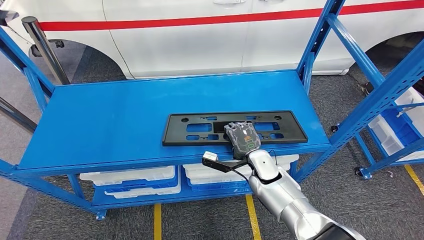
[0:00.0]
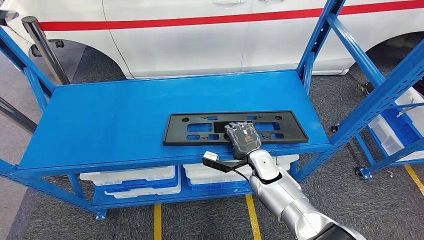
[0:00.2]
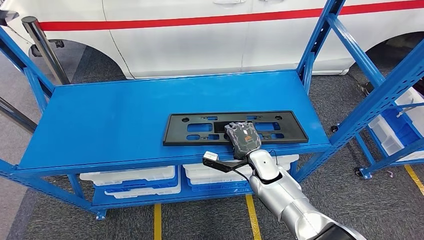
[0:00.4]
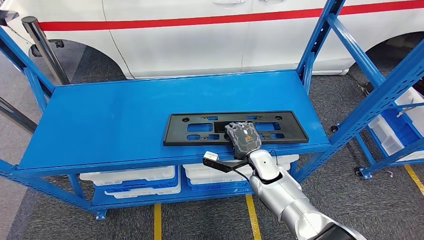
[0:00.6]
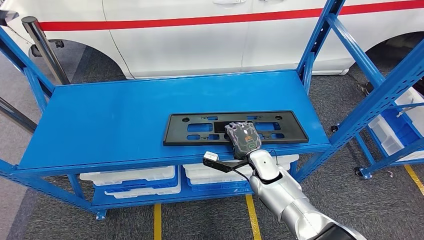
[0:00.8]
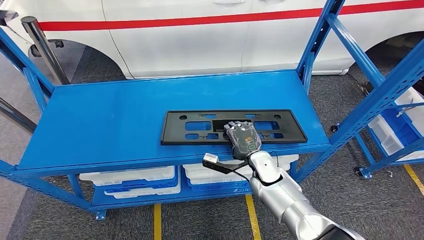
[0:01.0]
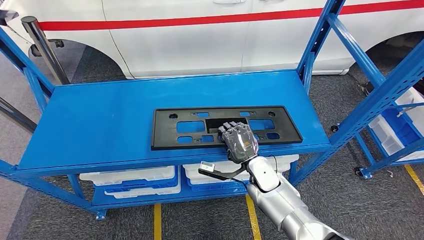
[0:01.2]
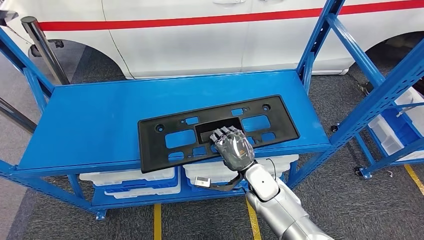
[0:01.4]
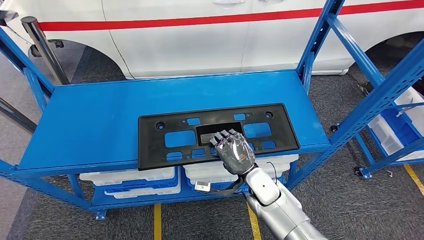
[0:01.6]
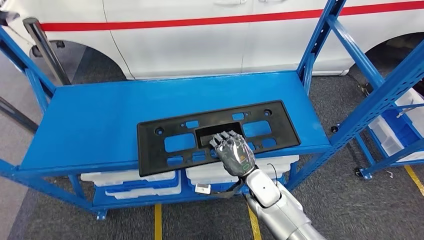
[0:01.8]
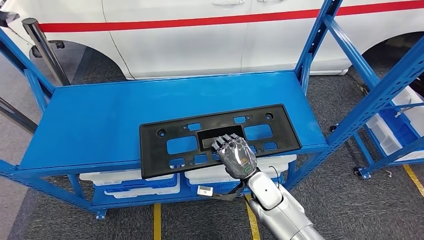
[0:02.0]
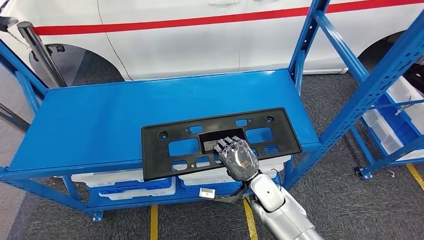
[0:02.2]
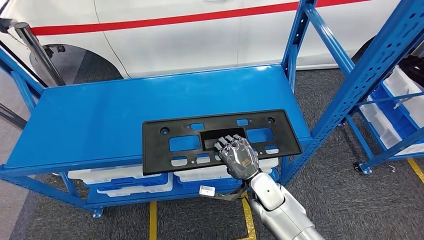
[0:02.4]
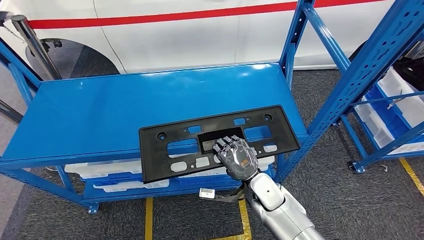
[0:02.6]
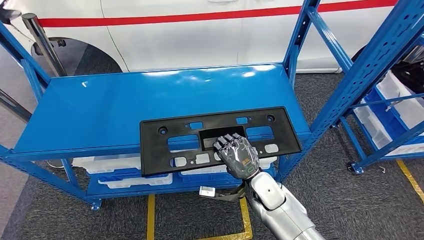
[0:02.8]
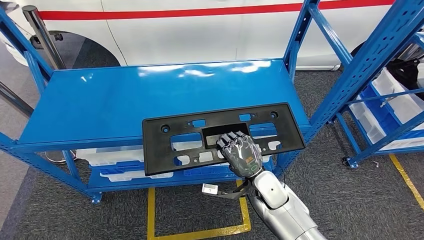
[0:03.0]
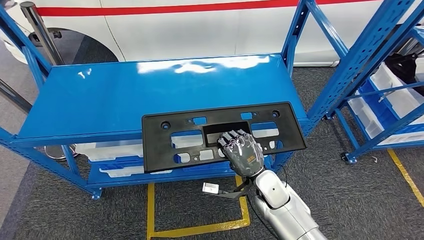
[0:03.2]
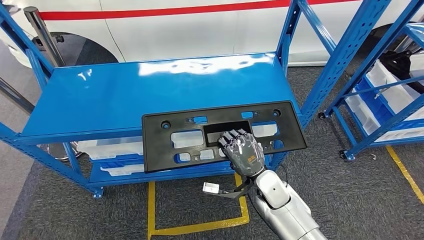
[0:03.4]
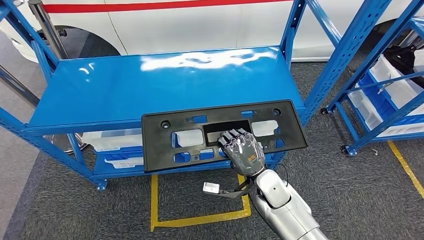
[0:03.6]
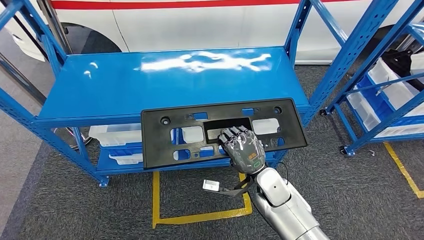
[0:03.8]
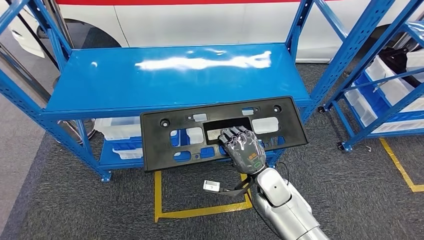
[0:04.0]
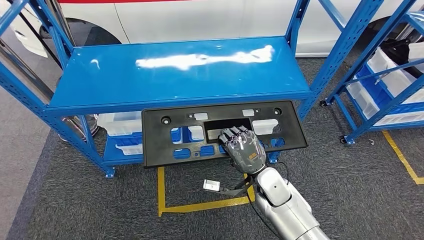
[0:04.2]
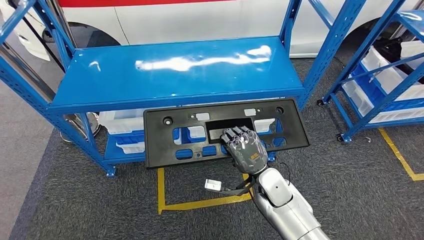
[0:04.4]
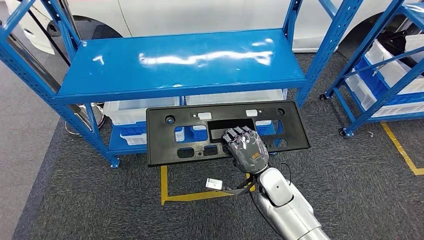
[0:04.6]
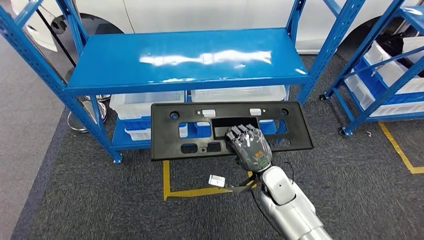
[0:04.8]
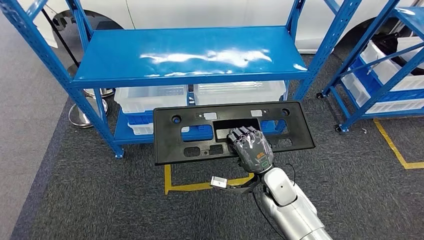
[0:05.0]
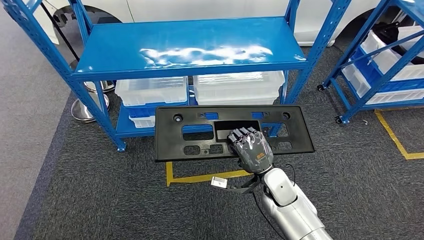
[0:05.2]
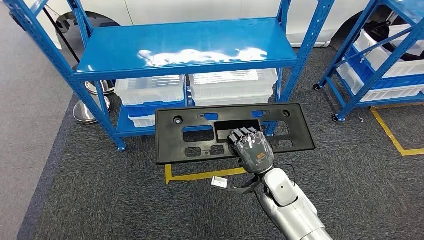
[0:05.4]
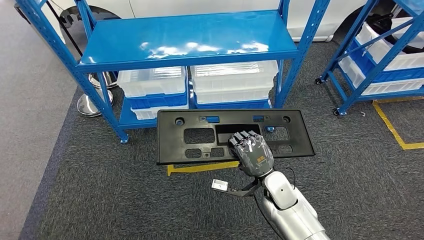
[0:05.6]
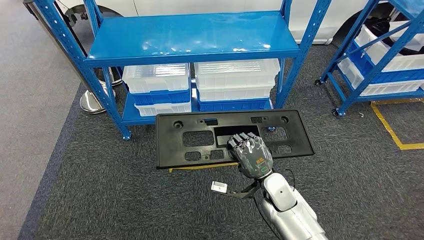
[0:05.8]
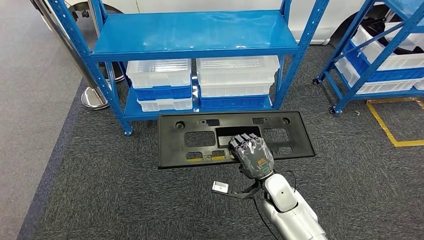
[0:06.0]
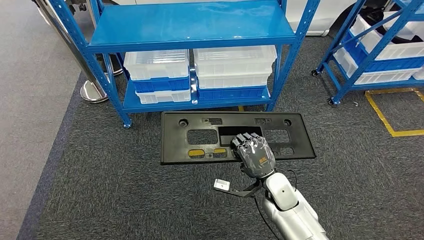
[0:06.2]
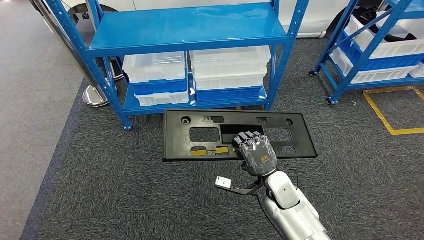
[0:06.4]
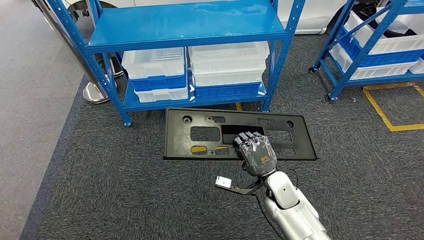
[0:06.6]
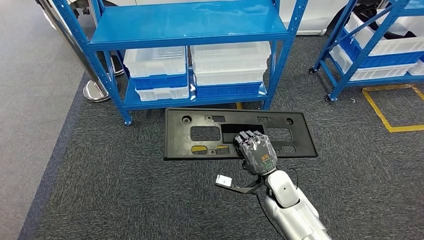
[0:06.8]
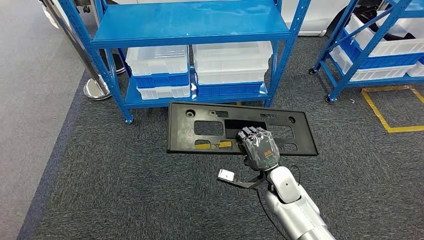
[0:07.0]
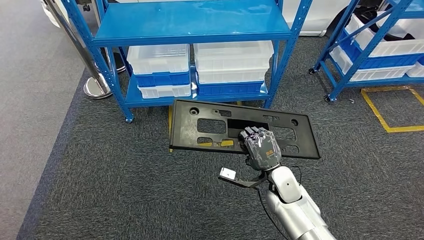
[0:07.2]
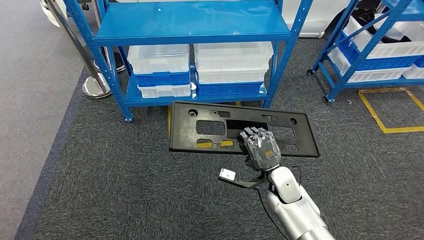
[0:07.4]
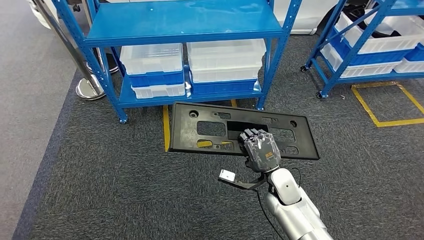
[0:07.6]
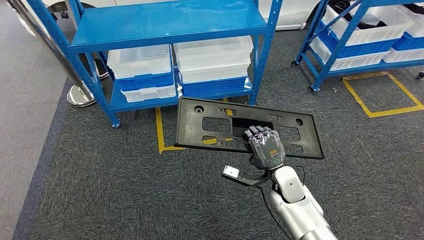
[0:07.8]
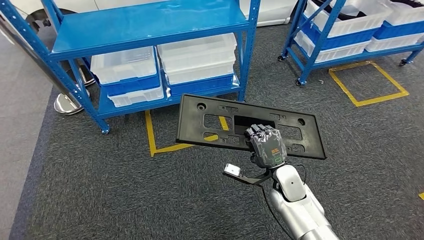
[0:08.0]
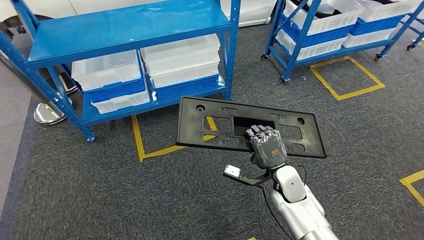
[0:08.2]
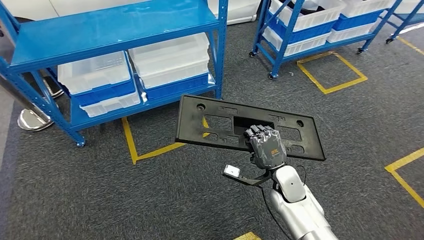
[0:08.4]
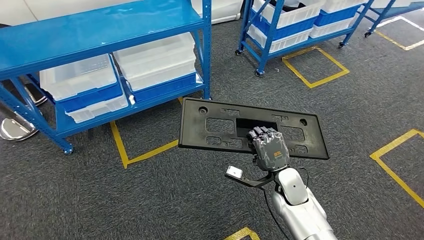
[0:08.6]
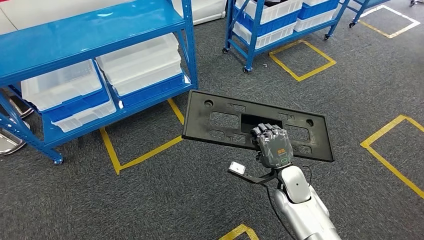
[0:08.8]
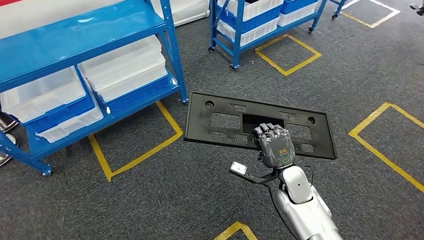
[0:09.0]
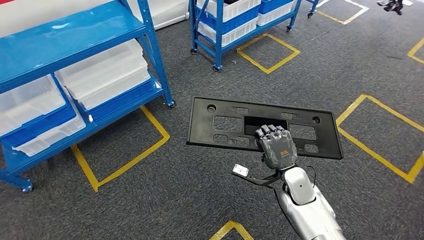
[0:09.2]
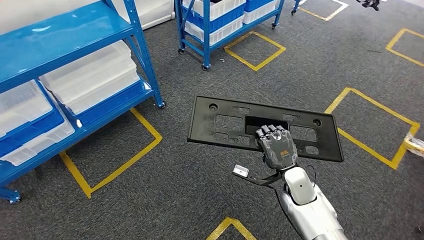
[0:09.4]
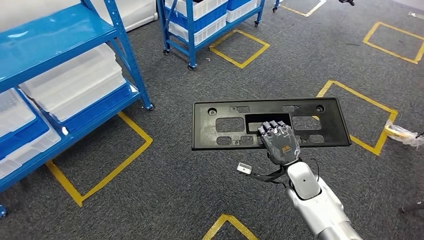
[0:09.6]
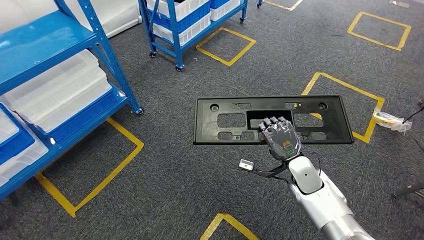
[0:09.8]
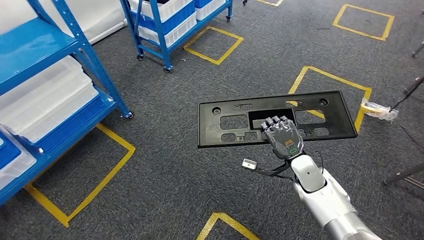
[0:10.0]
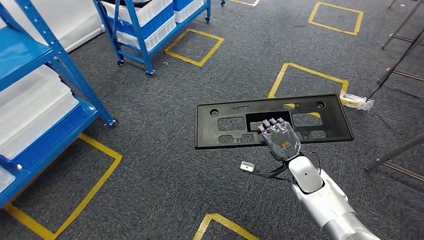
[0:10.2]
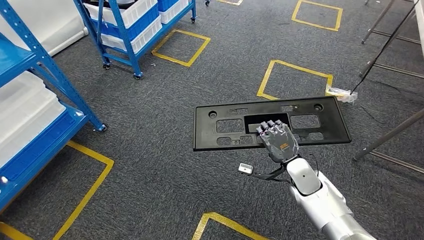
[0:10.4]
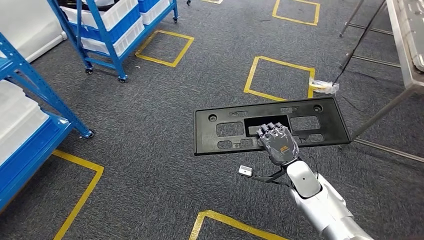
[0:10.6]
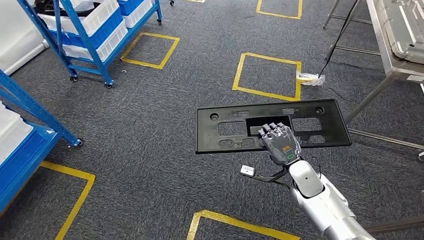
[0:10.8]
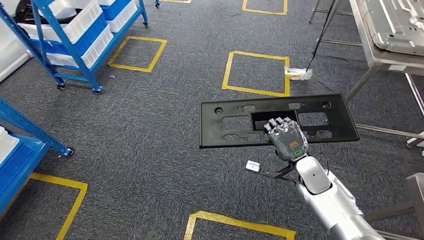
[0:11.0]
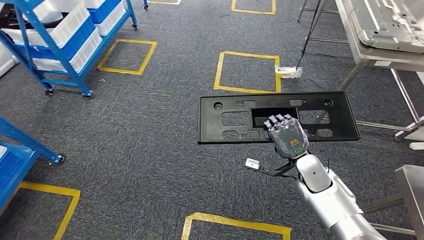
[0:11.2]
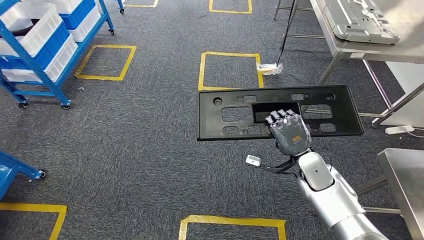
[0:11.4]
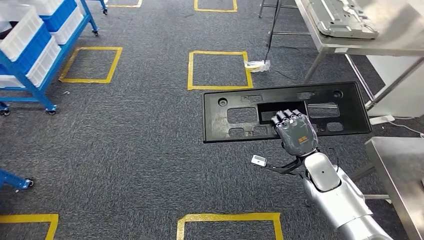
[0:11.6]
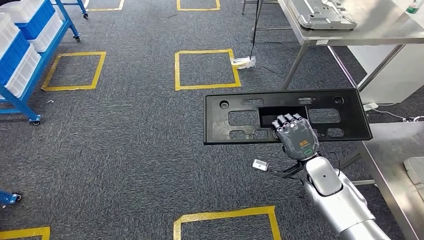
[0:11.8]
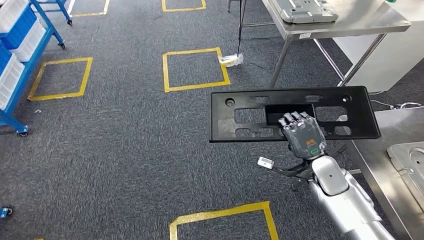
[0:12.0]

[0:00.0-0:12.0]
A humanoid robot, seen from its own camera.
Step, 0:00.0 to 0:02.0: Pick up the large material from the shelf.

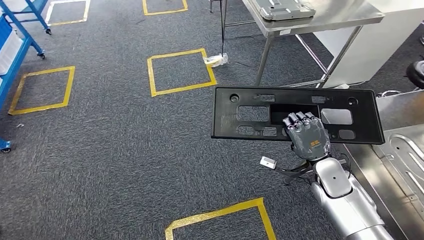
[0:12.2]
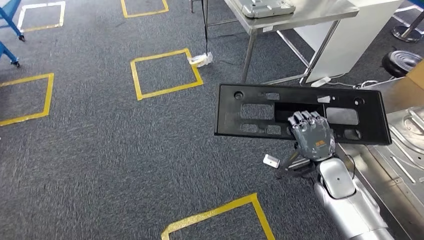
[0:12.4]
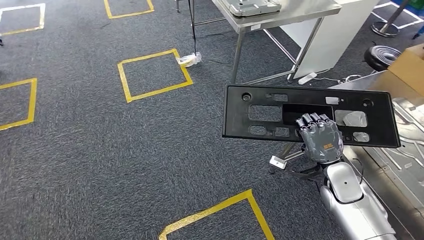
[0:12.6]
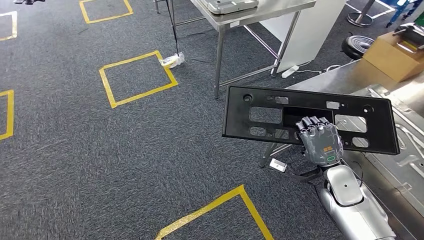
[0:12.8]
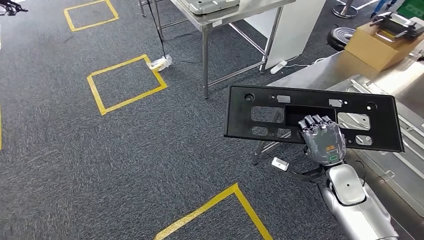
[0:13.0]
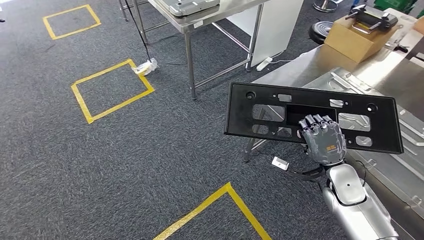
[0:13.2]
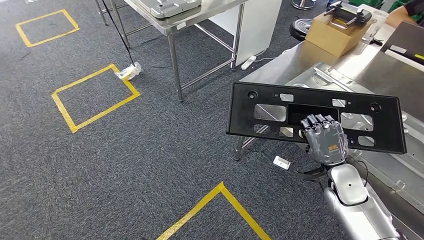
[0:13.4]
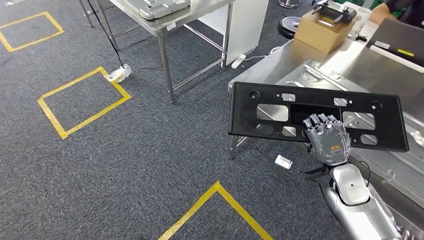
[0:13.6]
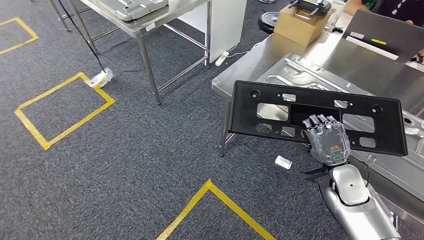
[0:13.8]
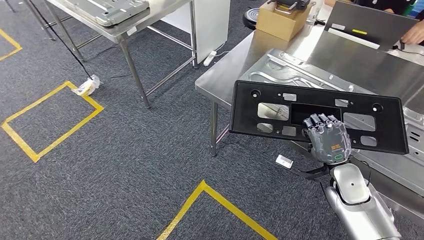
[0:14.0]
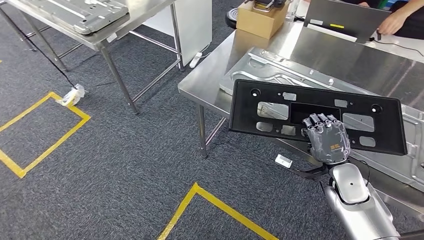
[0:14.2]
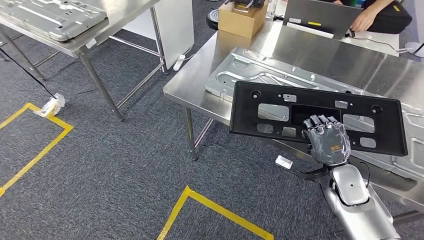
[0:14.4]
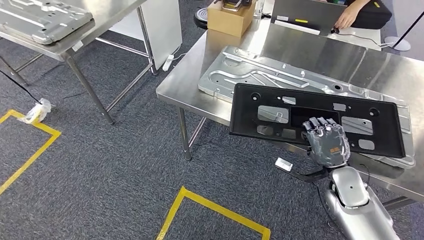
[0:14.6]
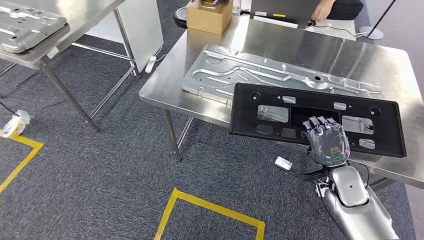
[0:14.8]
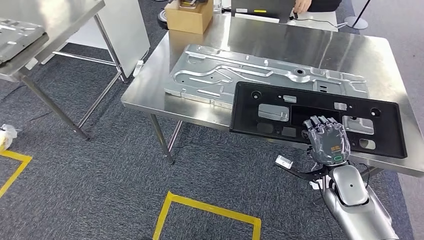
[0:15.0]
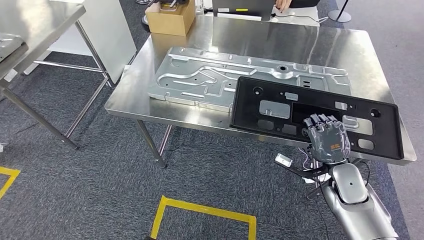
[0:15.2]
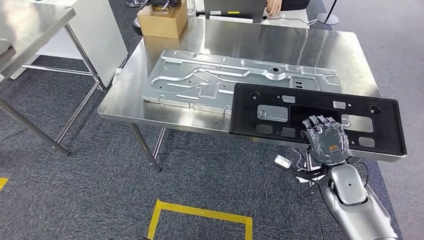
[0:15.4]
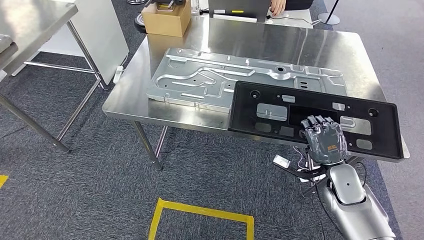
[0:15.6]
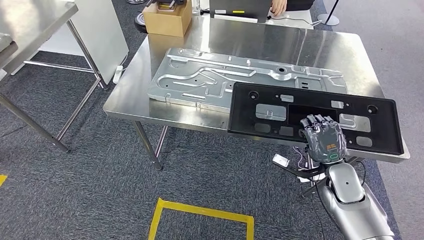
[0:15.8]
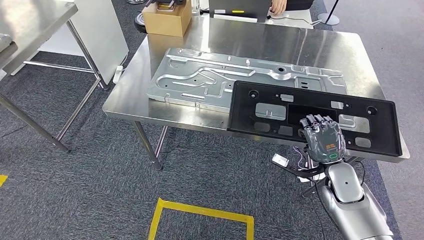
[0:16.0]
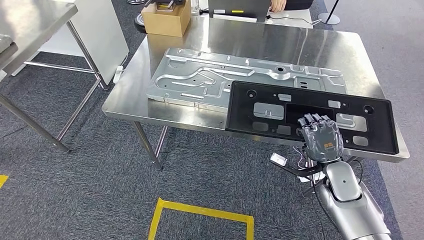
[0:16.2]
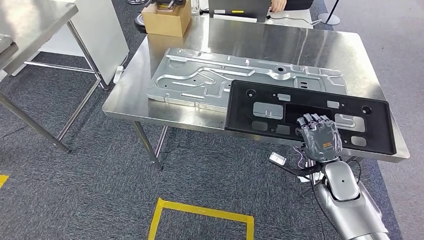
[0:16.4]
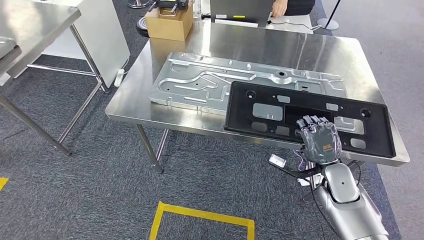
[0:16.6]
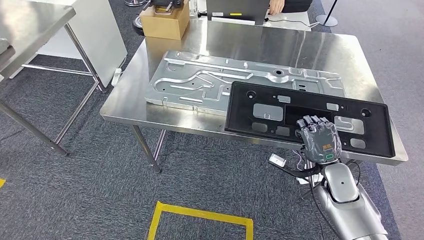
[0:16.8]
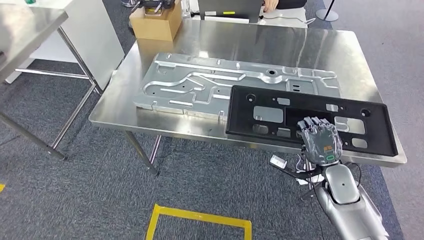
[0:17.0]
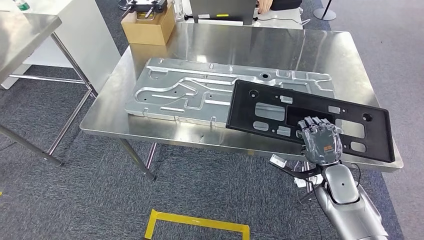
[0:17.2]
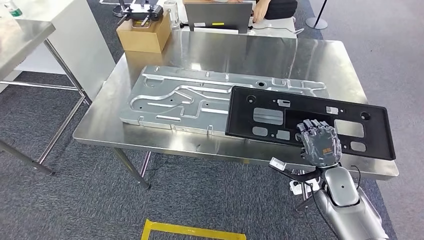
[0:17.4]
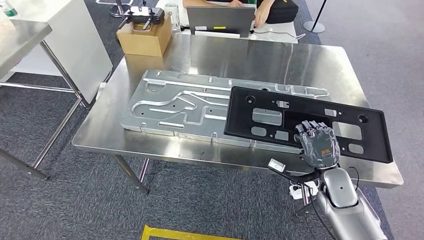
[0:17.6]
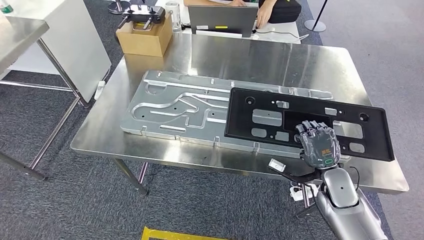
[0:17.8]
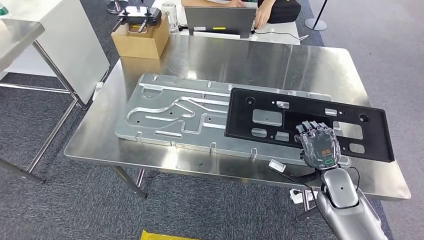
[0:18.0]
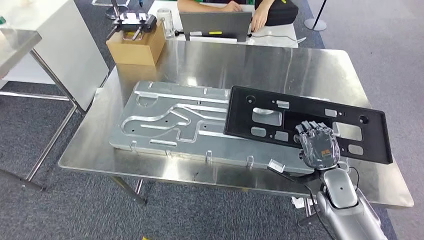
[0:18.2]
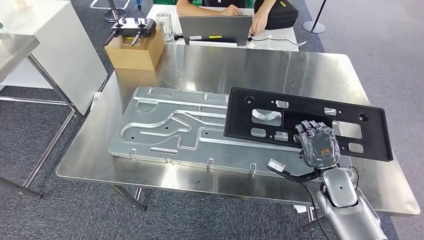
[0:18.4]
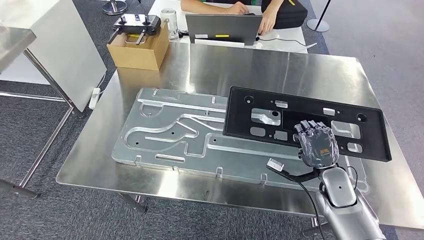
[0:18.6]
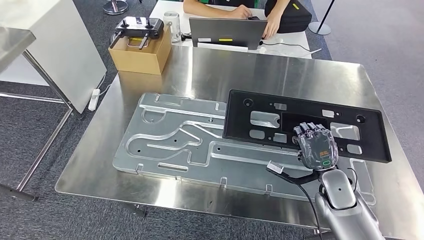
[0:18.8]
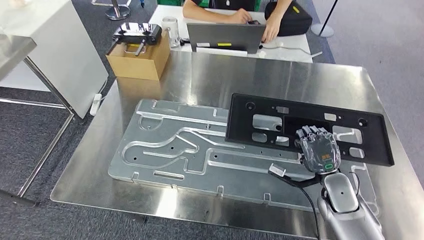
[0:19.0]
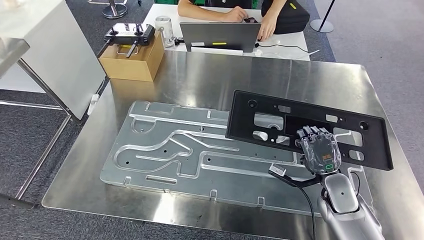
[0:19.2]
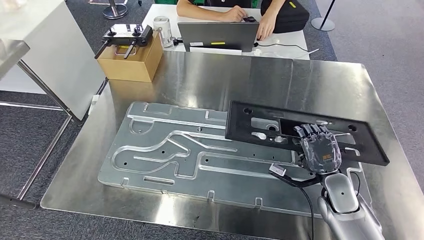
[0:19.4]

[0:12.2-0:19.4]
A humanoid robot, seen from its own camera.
Step, 0:12.2 to 0:14.6: Move the large material to the workbench.
